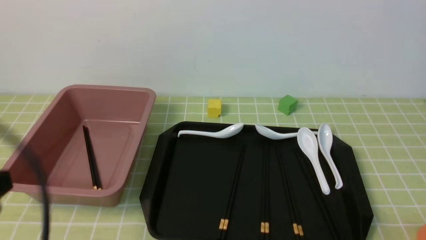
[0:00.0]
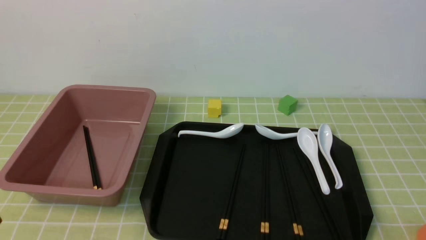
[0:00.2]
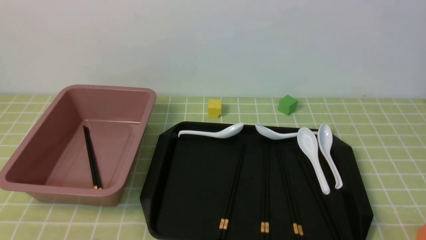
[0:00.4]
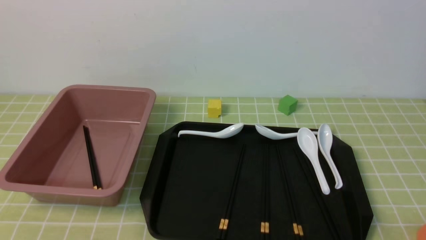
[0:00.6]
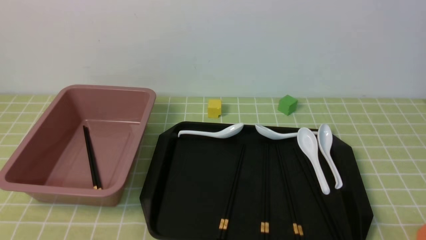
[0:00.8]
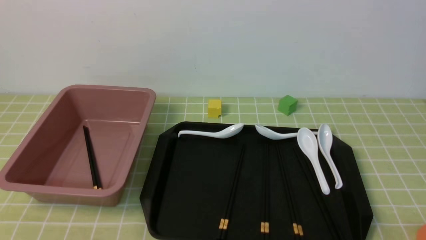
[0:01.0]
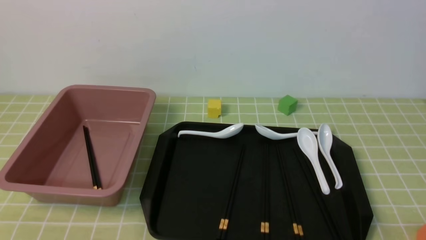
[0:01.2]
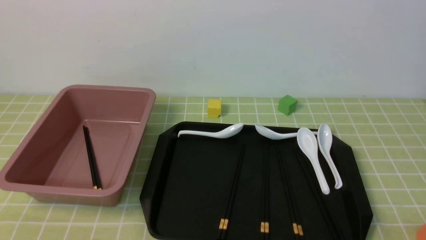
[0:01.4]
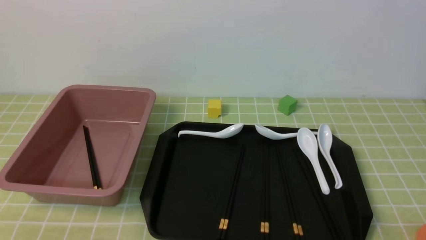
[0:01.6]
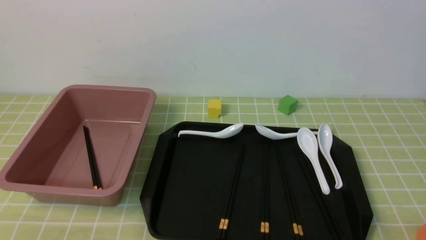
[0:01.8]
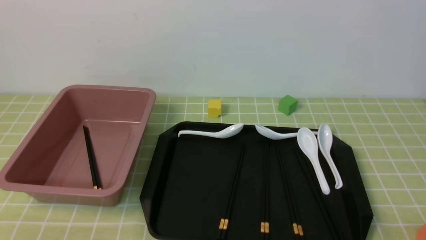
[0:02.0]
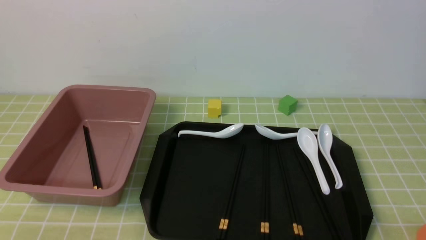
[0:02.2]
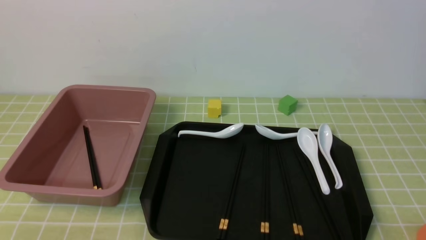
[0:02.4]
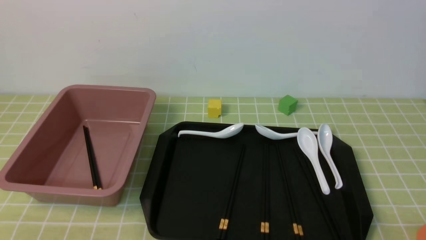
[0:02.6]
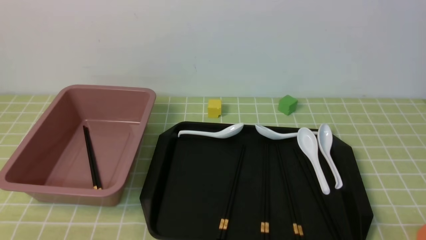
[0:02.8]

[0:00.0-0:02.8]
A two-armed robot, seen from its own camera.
0:00.0 to 0:01.4: The left gripper is displaced downward by some 15 cm.

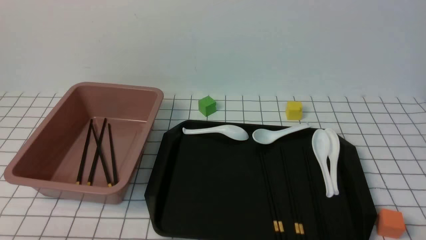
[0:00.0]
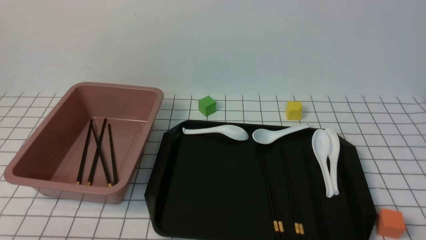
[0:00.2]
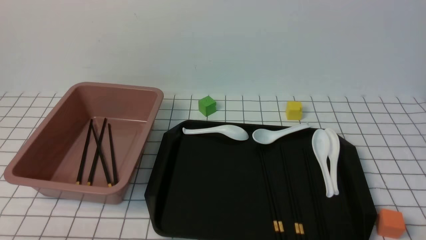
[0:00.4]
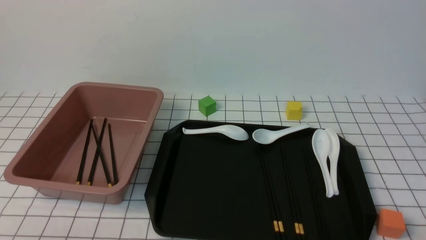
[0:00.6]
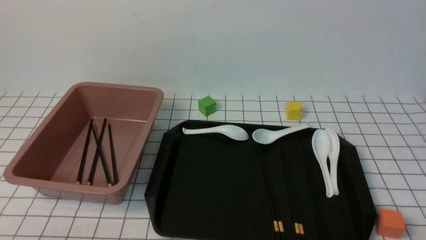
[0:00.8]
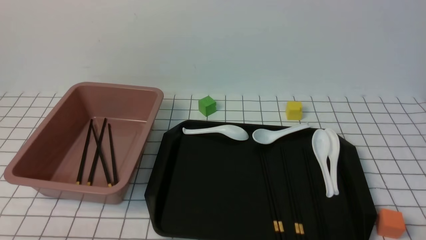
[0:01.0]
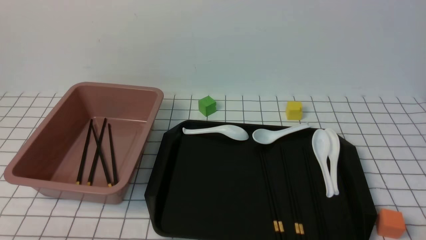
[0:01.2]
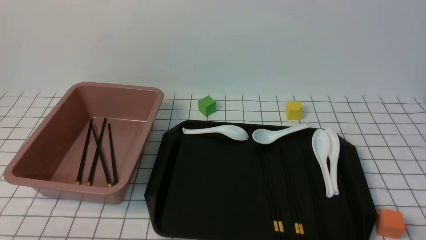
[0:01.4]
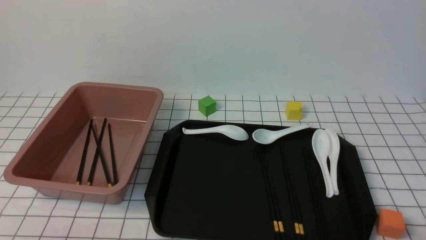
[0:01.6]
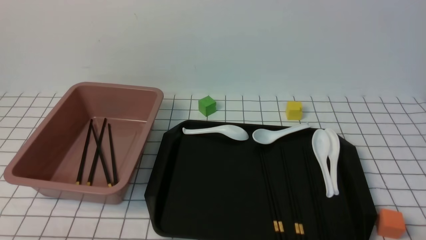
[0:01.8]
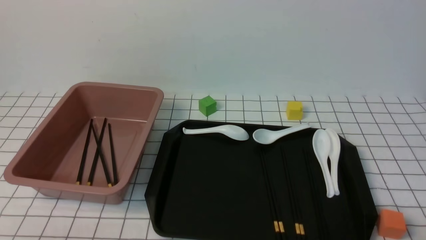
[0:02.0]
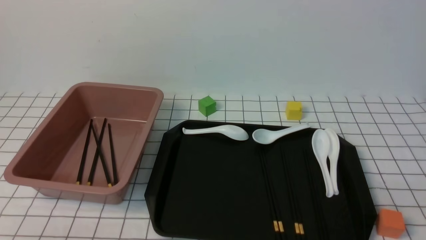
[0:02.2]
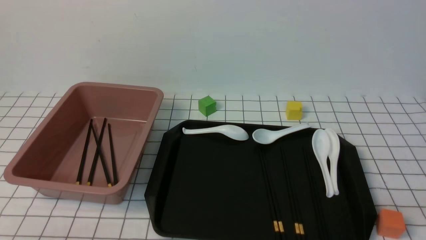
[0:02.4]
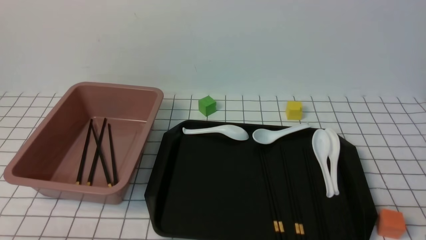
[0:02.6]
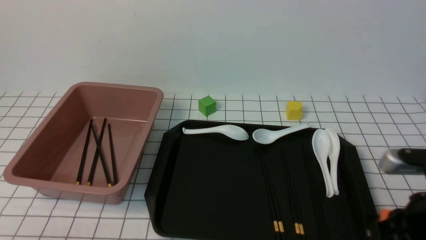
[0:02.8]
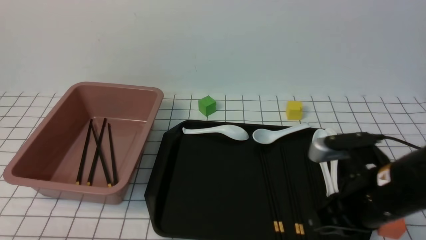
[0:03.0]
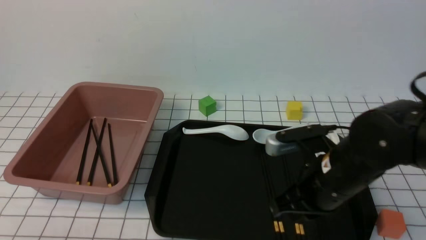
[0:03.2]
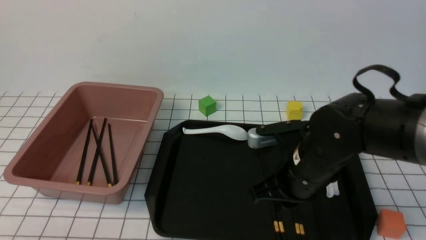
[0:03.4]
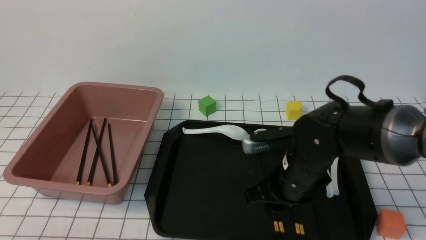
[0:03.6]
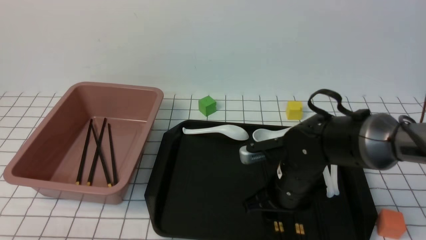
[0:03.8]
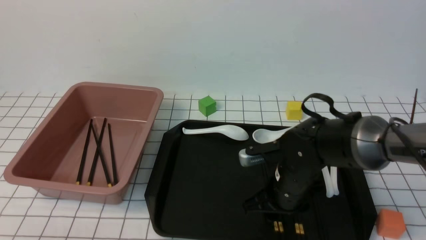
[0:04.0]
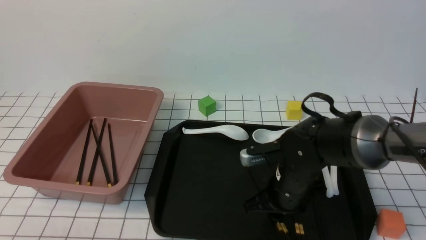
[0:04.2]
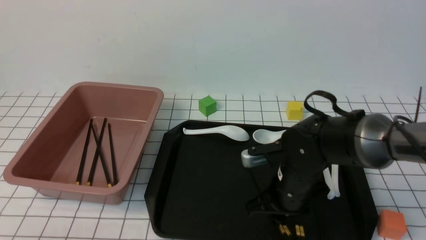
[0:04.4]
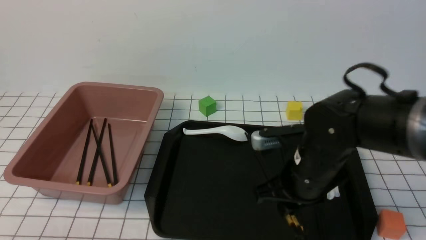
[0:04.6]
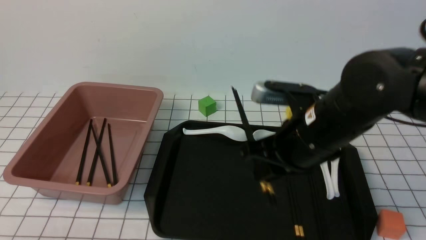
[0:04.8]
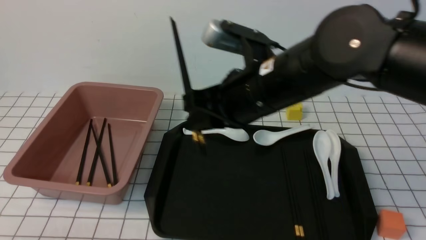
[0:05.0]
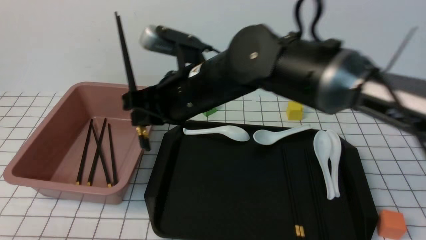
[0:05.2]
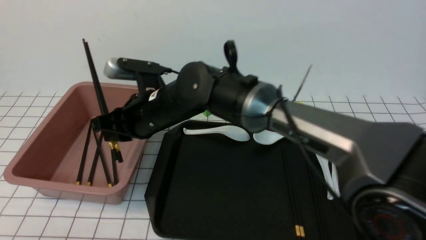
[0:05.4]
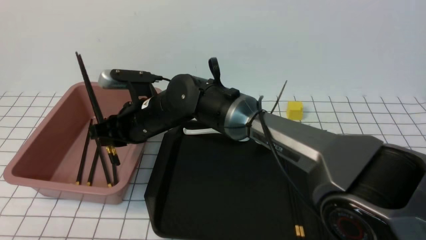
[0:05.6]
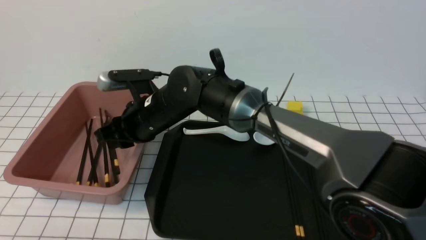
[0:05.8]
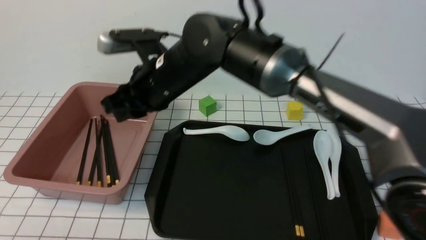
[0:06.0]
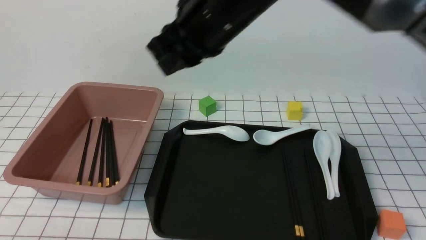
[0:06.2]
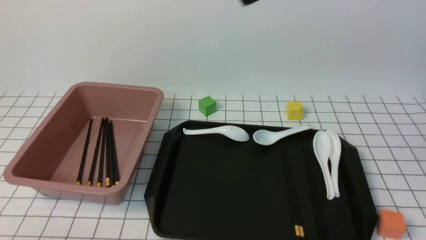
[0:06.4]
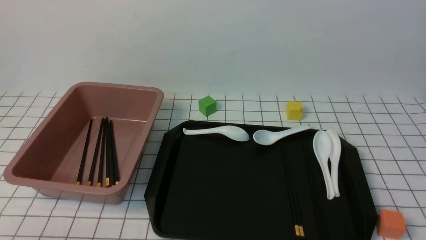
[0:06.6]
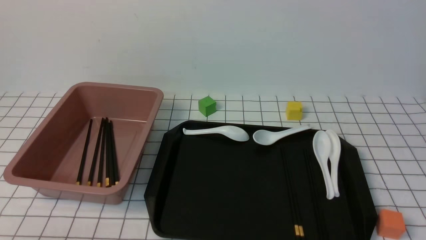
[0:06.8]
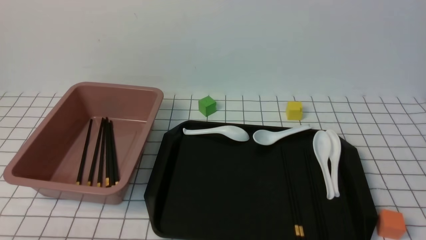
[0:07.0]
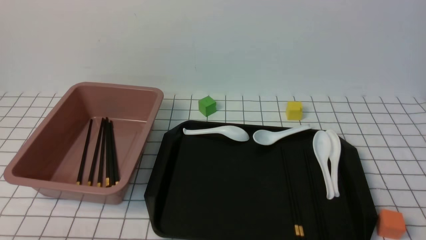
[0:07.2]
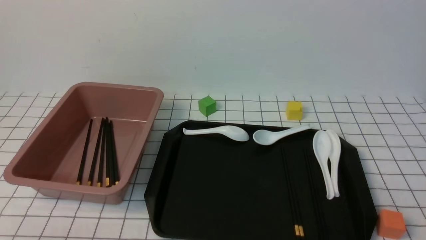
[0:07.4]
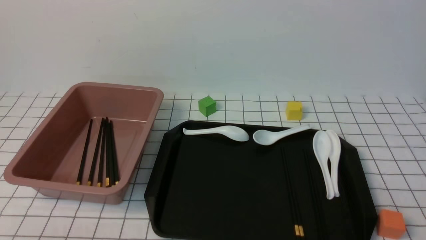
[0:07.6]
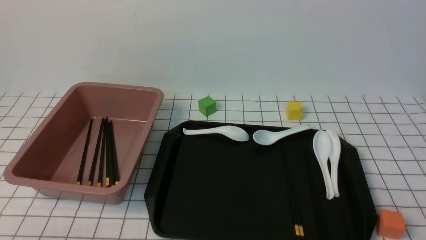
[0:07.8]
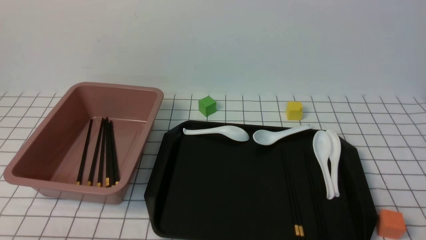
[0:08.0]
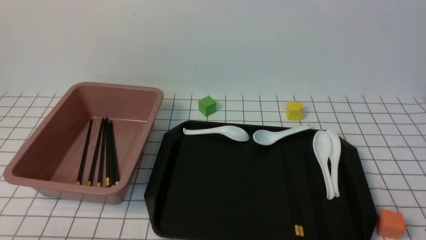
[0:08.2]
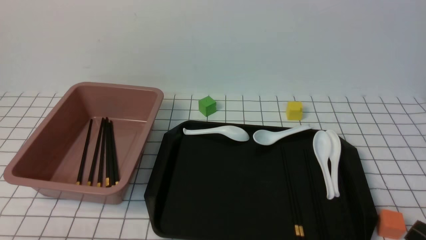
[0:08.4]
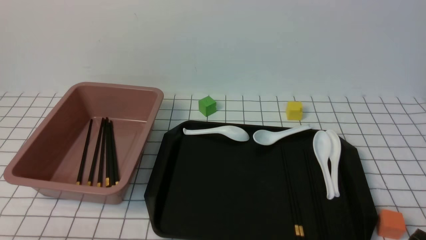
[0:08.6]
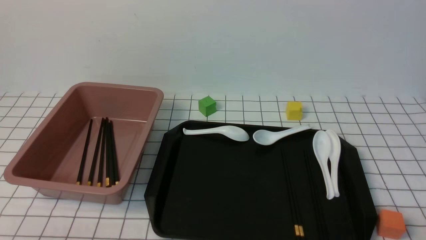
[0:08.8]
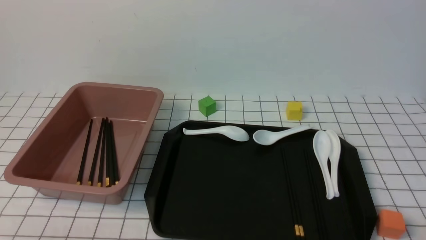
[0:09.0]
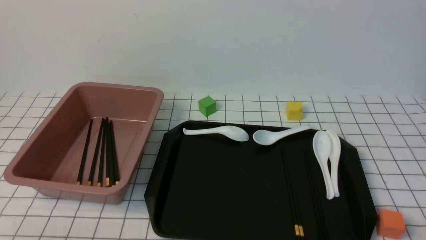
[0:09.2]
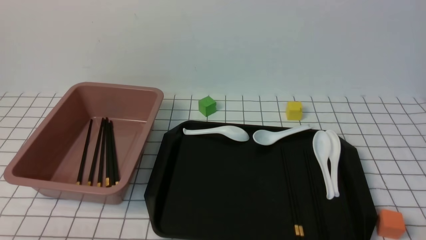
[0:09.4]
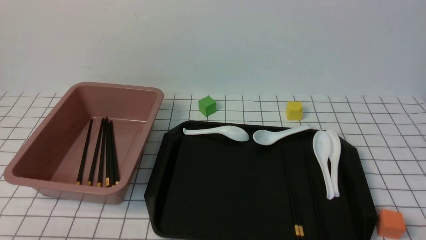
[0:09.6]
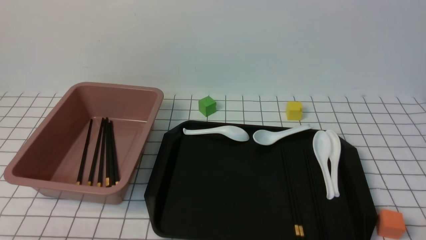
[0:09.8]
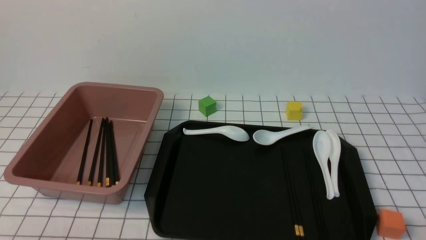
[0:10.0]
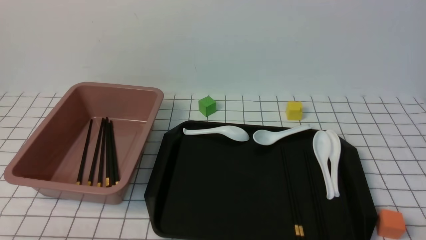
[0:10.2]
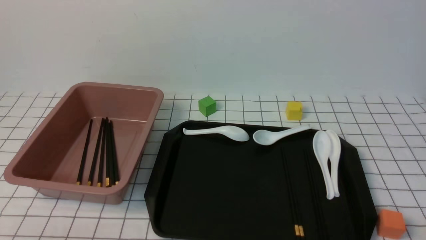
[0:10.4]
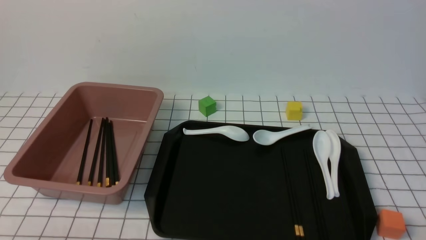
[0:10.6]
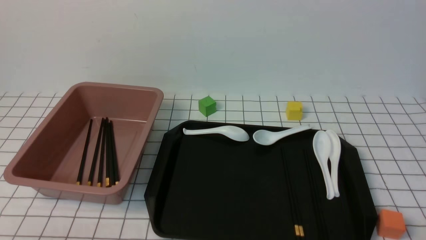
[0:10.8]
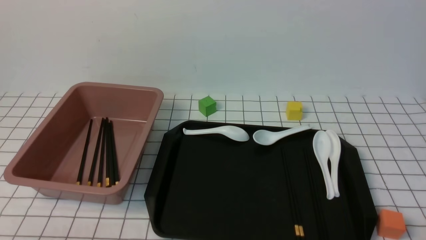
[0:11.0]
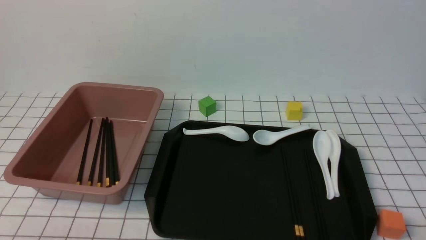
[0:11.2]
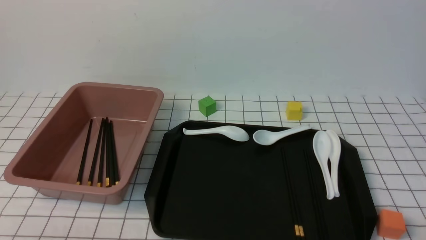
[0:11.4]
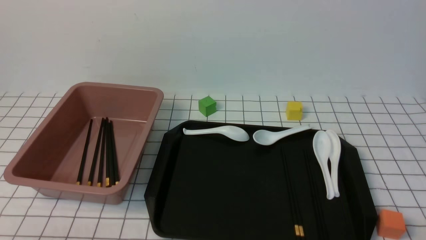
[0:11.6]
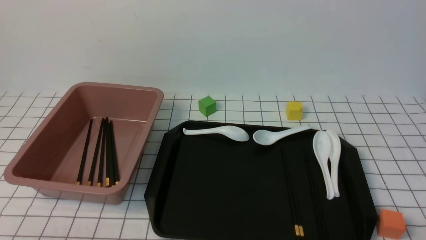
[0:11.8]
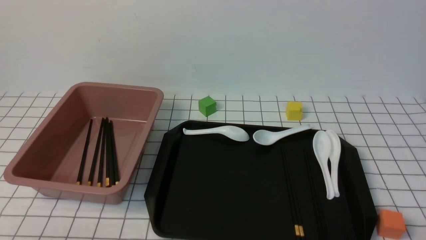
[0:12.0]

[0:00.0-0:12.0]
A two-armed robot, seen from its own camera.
Step, 0:00.0 to 0:04.6: use the right arm to grab a pair of chopsticks.
Step, 0:05.0 to 0:06.0: use the right arm to put the chopsticks into the lunch box.
0:01.6 to 0:03.0: The right gripper shifts roughly 20 cm forward and to the left, and closes.
0:03.0 to 0:04.4: The right gripper shifts some 15 cm to the left, forward and downward, and opens.
0:04.4 to 0:06.0: The right gripper shifts about 25 cm upward and to the left.
0:06.0 to 0:07.6: The right gripper is displaced to the right and backward by about 40 cm, and closes.
0:10.4 to 0:12.0: Neither gripper changes place.
